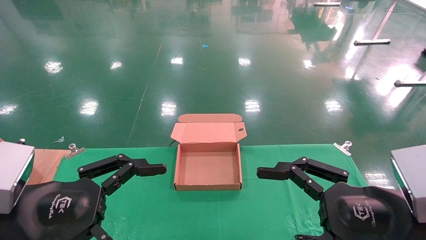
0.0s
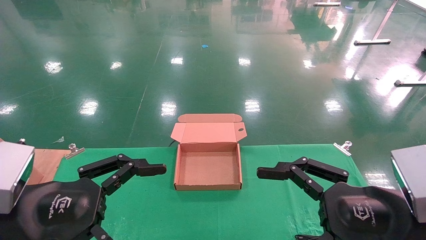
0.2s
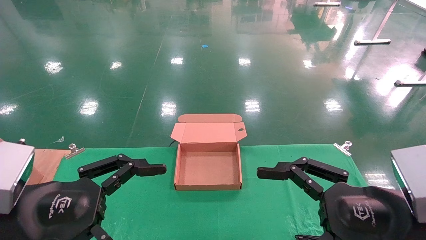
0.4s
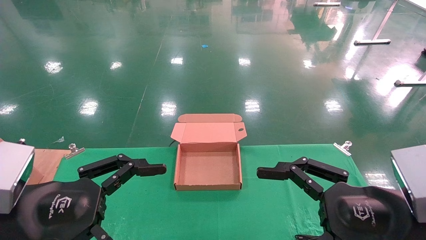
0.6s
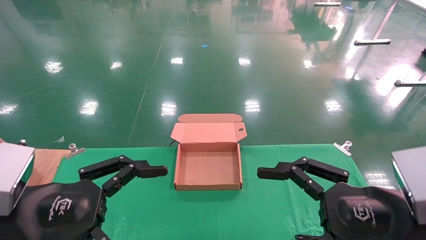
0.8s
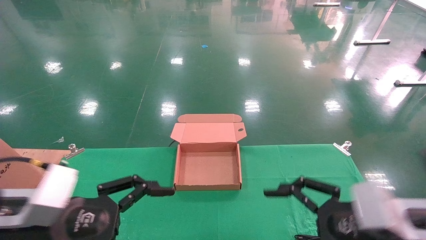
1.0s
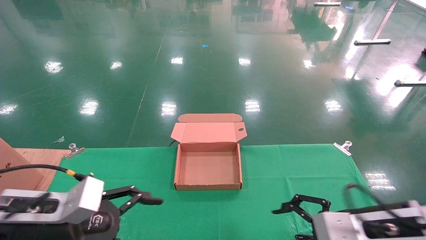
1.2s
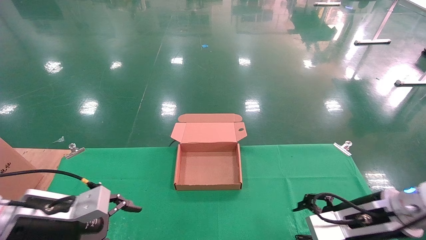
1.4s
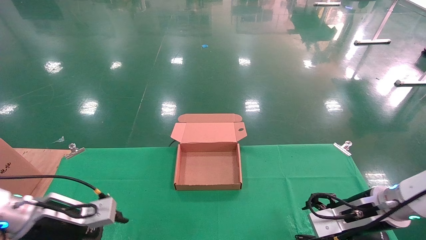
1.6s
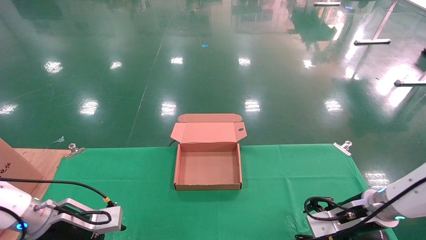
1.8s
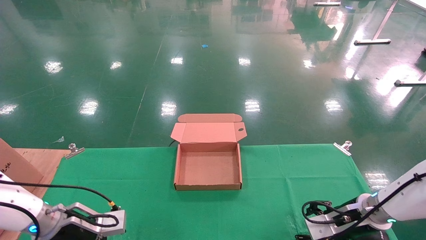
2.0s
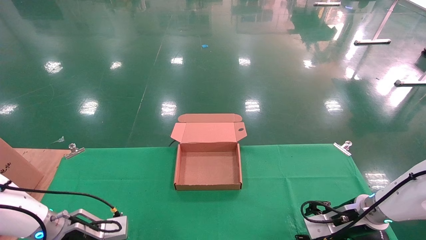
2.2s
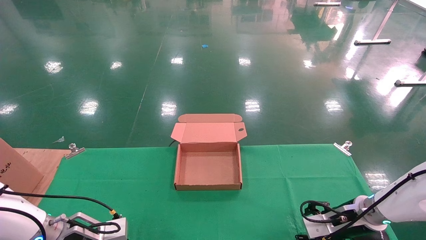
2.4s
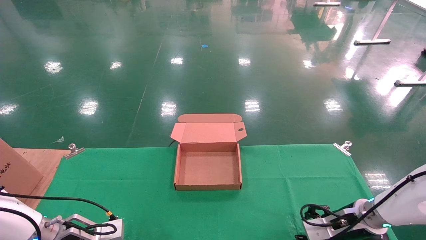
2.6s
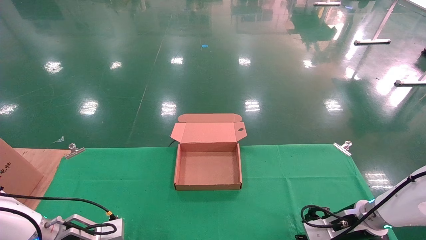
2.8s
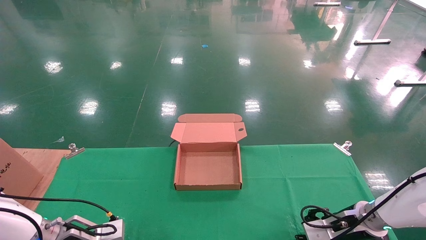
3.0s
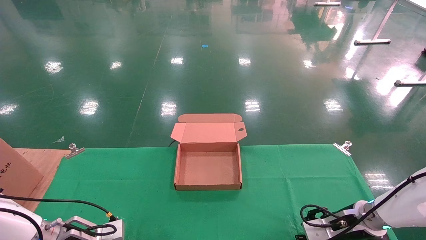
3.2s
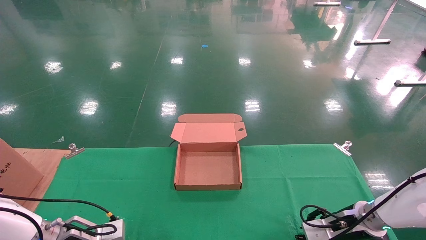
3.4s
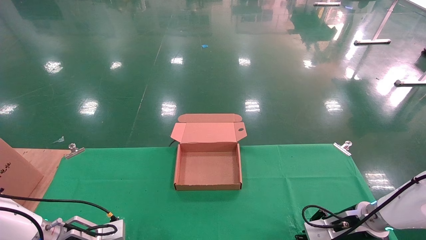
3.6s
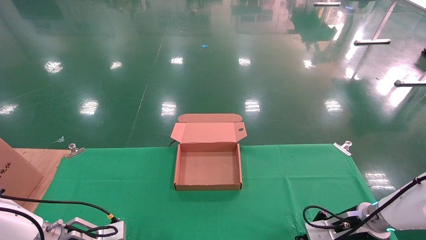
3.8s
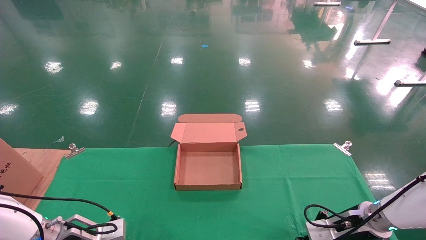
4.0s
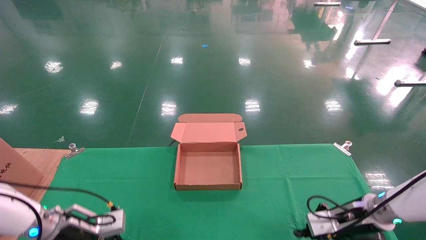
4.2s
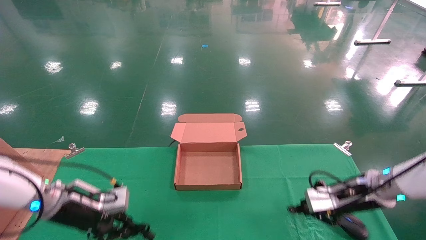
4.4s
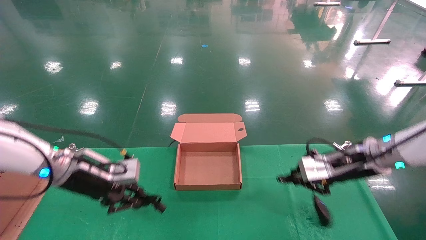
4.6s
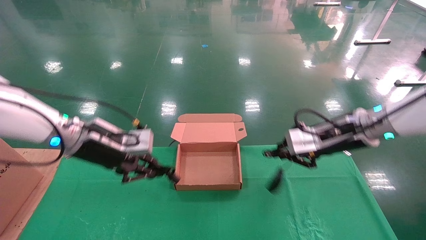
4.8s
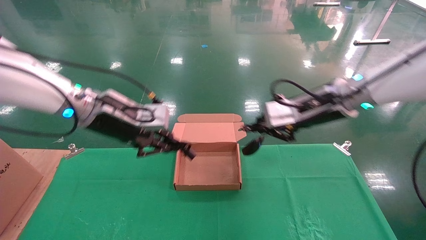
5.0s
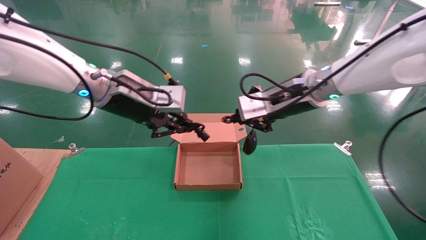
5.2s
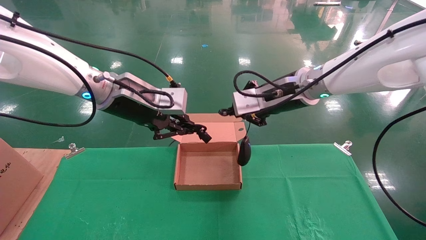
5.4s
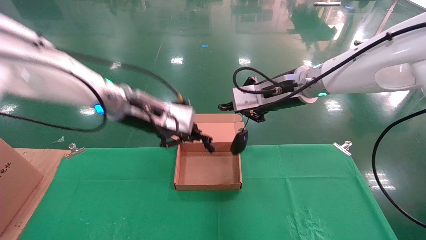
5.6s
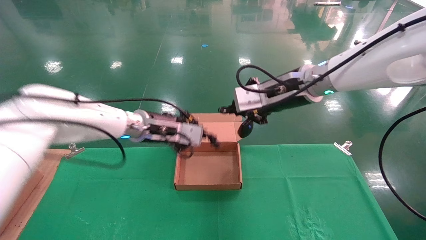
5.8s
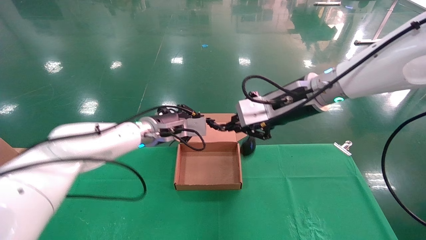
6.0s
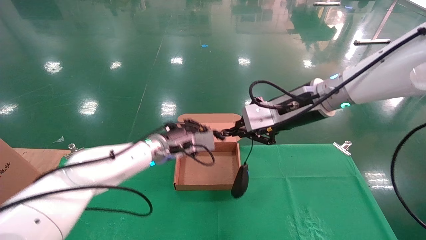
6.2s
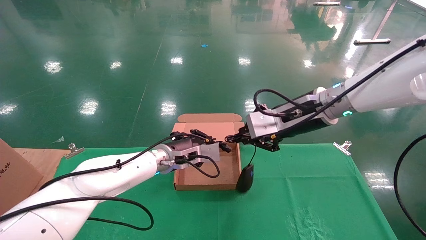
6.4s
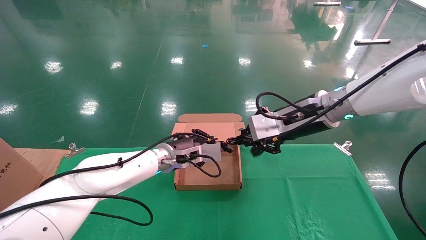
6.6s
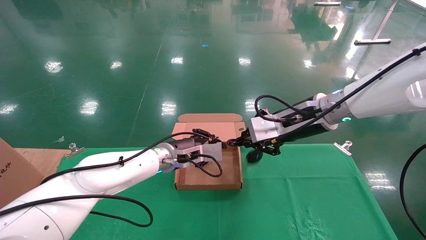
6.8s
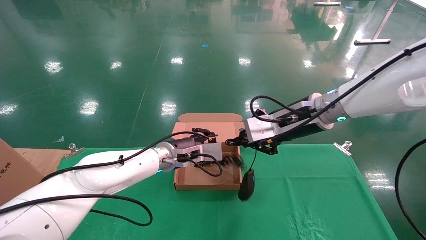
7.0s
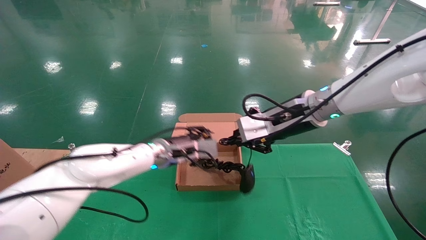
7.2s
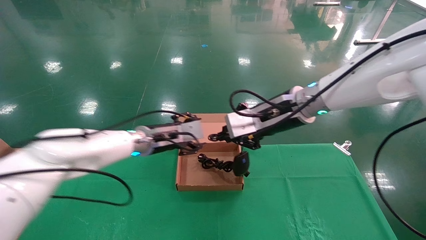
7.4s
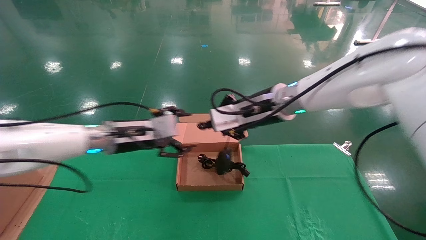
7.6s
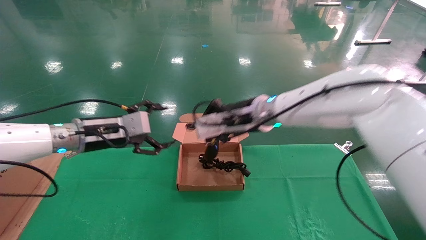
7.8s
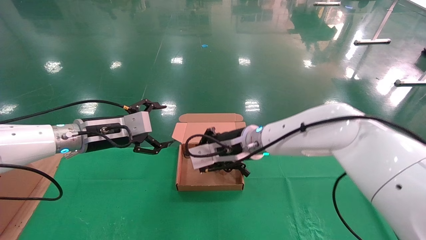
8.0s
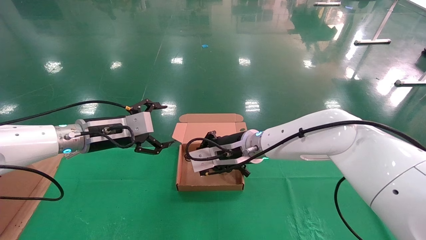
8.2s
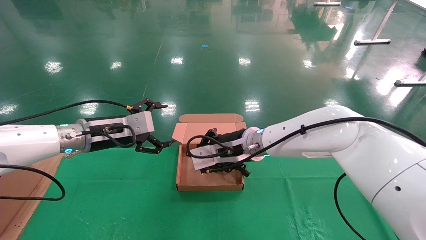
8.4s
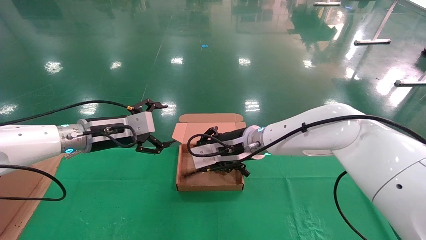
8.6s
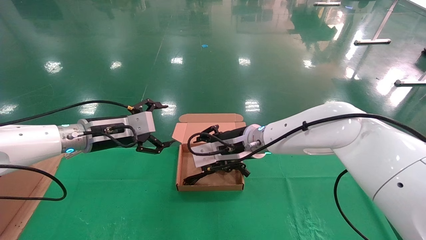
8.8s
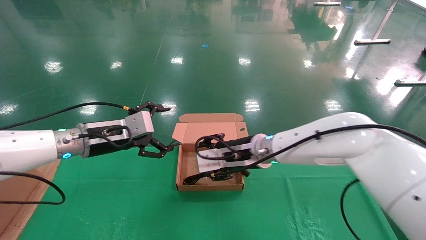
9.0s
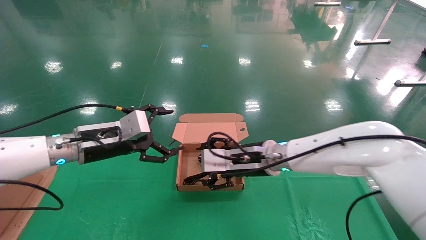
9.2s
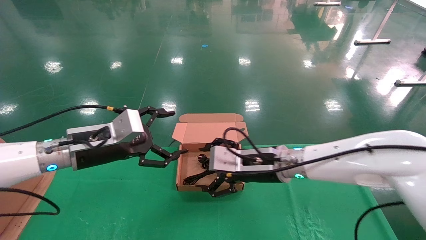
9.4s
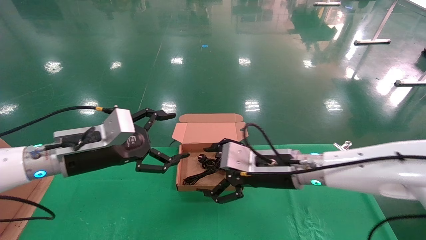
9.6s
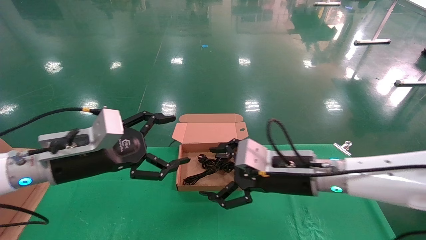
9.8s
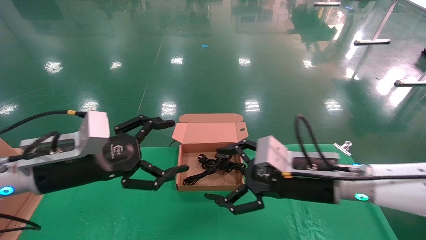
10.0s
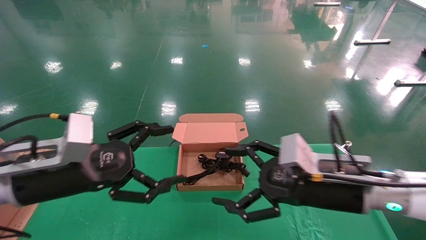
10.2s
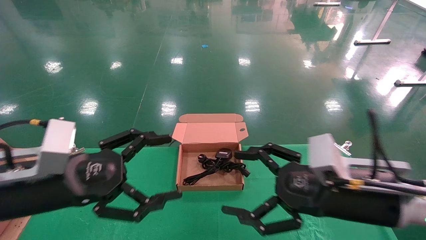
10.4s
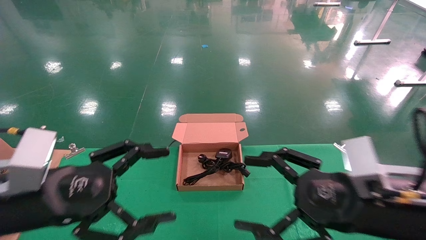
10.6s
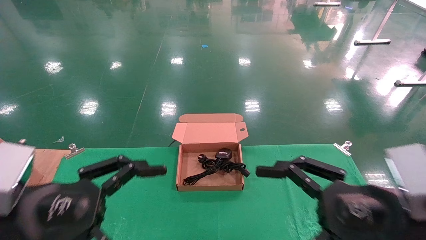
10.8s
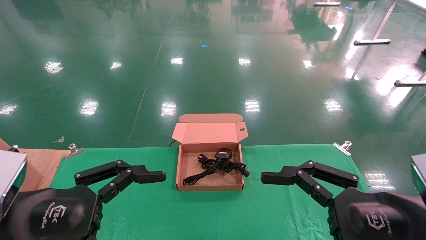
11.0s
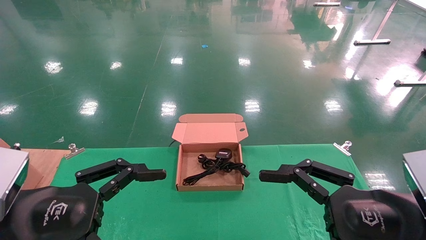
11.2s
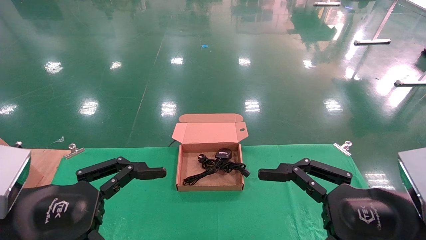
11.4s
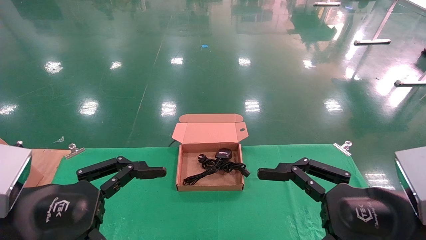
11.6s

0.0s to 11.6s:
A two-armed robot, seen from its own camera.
Step, 1.2s to 4.8s: Grab and lift both the mouse and power cord from the accessory packaging area at the same time.
Step, 5.0s to 9.8s: Place the mouse and power cord into the box.
0.0s to 1.4s: The two grippers go some 15 cm forward and downward.
1.4s to 2.8s: The right gripper heads forward and downward, covering roughly 15 cm; the left gripper goes some 15 cm downward and forward.
2.8s to 4.4s: Both grippers travel together upward, some 10 cm. The right gripper closes its fingers. The left gripper closes its fingers.
4.4s to 5.8s: The left gripper goes about 25 cm to the right, upward and forward; the right gripper is displaced upward and to the left by some 25 cm.
5.8s to 7.2s: The left gripper moves downward, roughly 5 cm, and opens its fingers.
7.2s to 8.8s: The left gripper is displaced to the left and backward by roughly 15 cm, and opens. The right gripper heads downward and to the left, covering roughly 15 cm.
8.8s to 10.2s: The left gripper goes approximately 15 cm backward. The right gripper shifts about 20 cm backward and to the right, and opens up.
10.2s to 11.6s: The left gripper is displaced backward by about 10 cm, while the right gripper heads backward and to the right, covering roughly 10 cm.
